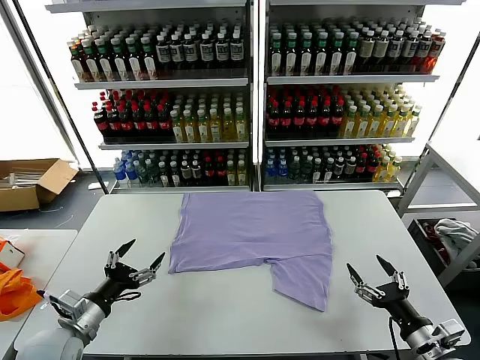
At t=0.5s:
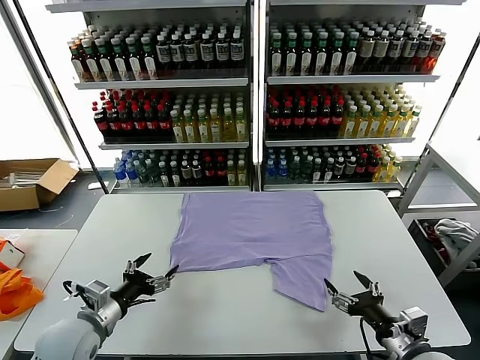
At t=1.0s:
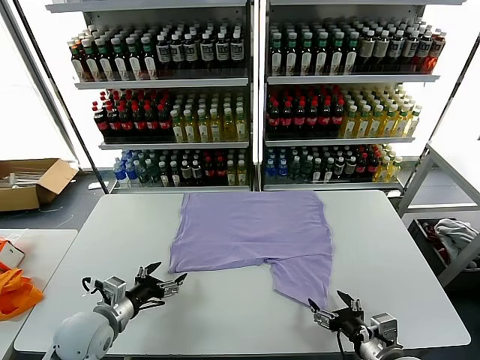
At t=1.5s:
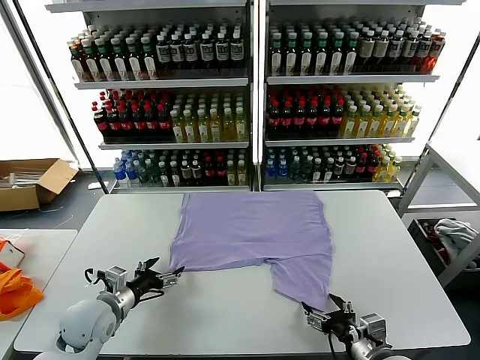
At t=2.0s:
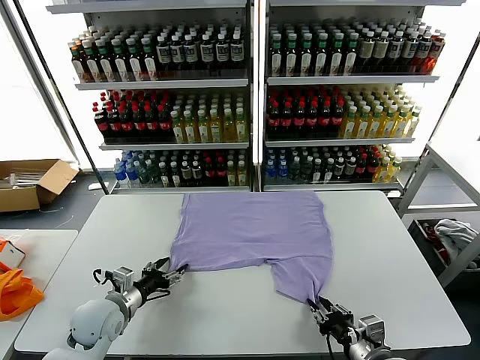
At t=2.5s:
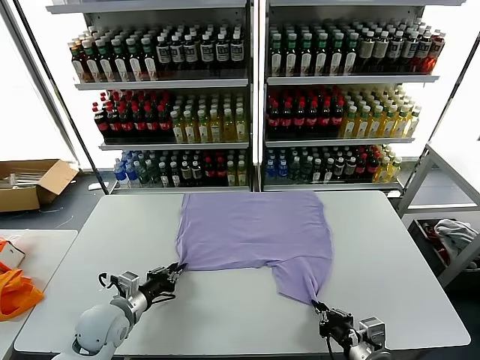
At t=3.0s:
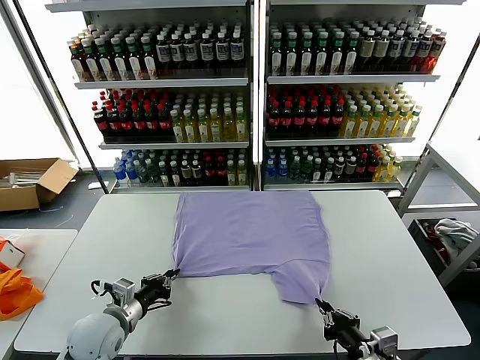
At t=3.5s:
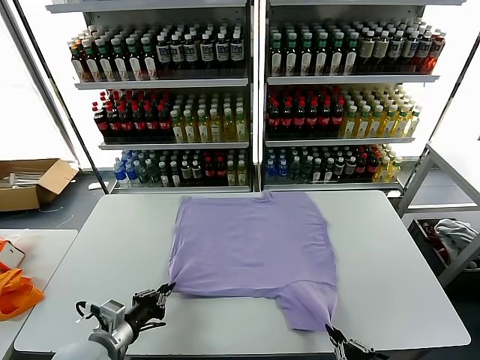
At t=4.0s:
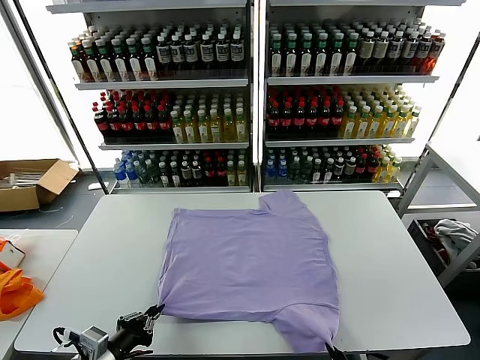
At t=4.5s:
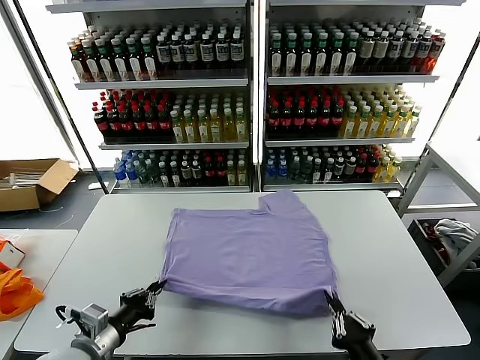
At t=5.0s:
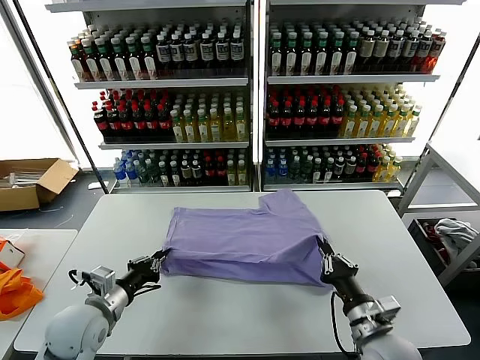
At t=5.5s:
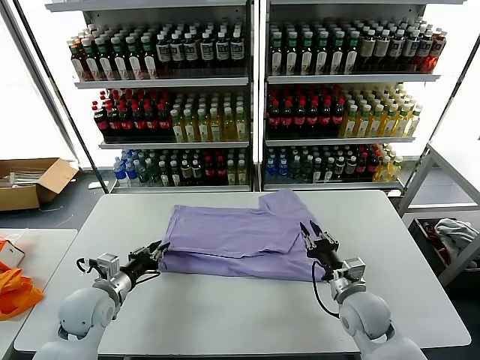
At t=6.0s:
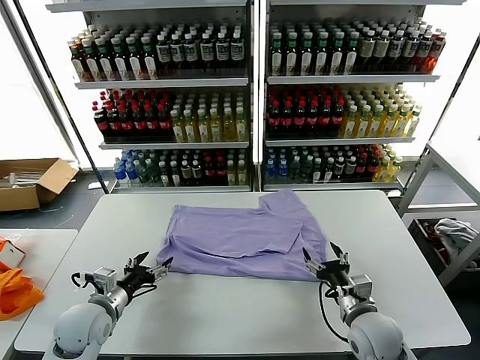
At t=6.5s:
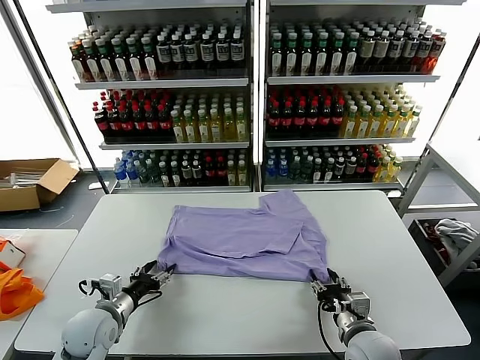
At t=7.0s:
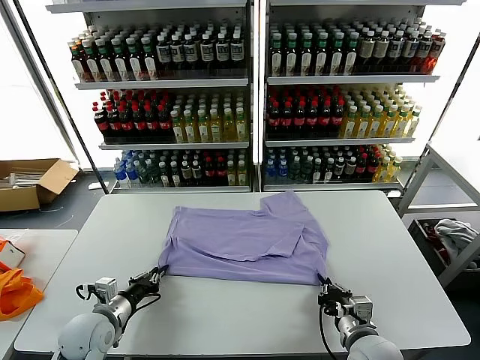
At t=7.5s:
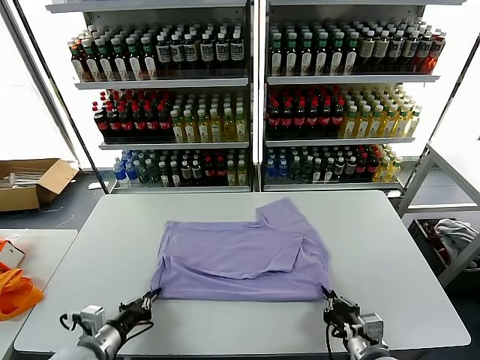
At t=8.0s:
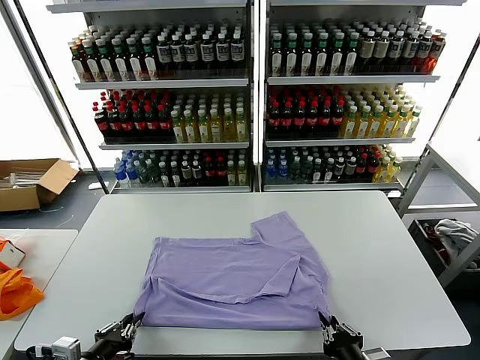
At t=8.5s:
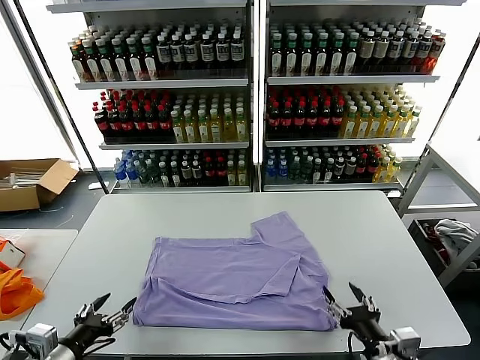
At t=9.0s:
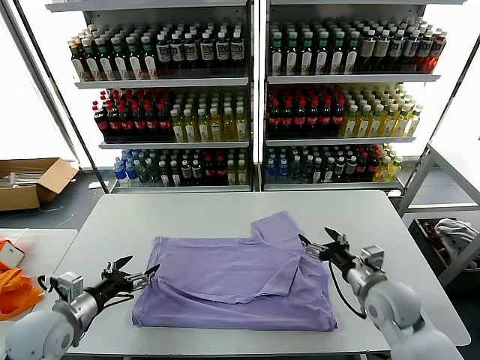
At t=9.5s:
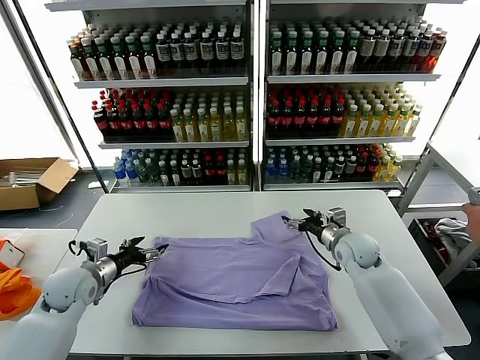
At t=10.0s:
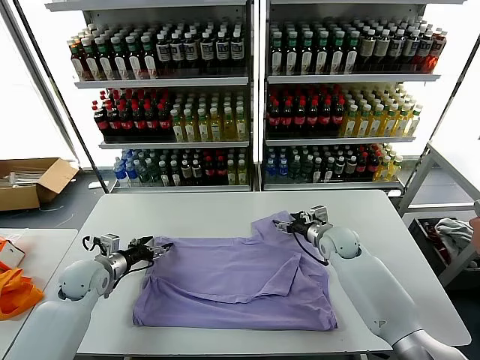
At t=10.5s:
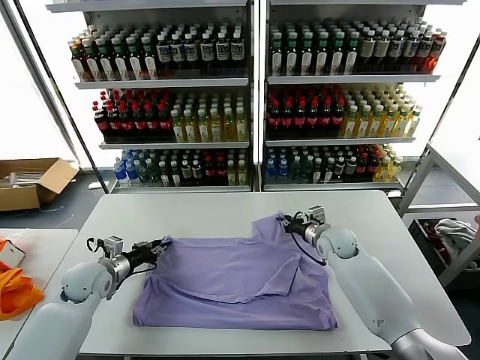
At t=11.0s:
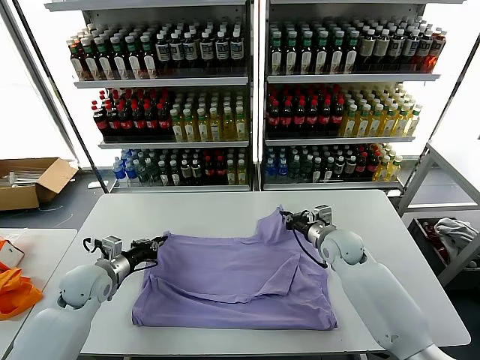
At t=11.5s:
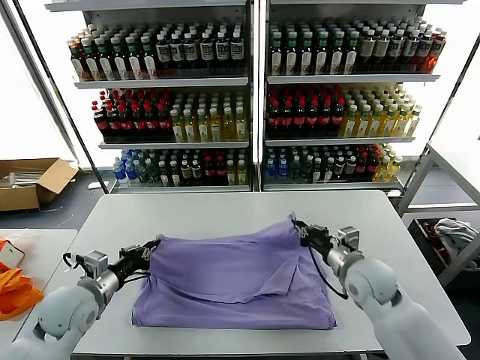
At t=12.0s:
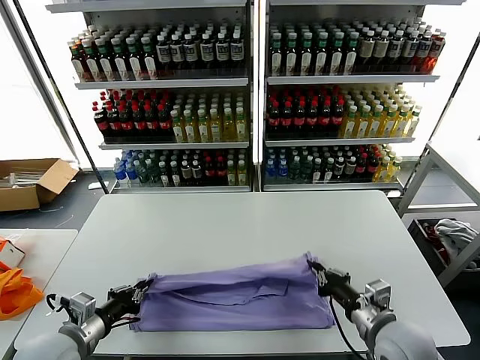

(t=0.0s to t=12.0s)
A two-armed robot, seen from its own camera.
Task of the whole recording: fold and organize the clothes.
Step, t=0.0s - t=2.5s: use both grippers simultaneously to clamp the lower edge of the clothing fabric.
Step, t=3.0s - t=5.5s: use both grippers to drag the lower edge of the fabric forward and fold it over the upper edge.
Step, t=6.0s - t=8.0s: Drag the clothes downward with both gripper.
Step, t=8.5s - t=10.5s: use both grippers simultaneously to clamp the upper edge of the clothing fabric.
t=2.0s - t=4.0s: The left gripper travels backward and upward by roughly 15 cm, and closes. Meanwhile the right gripper travels backward by about 15 cm.
t=4.0s - t=6.0s: The right gripper goes roughly 20 cm forward, and opens up; the left gripper goes roughly 15 cm forward, and opens its fingers.
t=6.0s - t=8.0s: The grippers both shift backward by about 15 cm. The left gripper closes its fingers. The right gripper closes.
t=8.0s - t=10.0s: Both grippers move forward, about 30 cm. The left gripper opens. The right gripper opens its fingers.
t=10.0s - t=12.0s: The right gripper is displaced backward by approximately 30 cm, and closes, while the left gripper moves backward, approximately 20 cm, and closes up.

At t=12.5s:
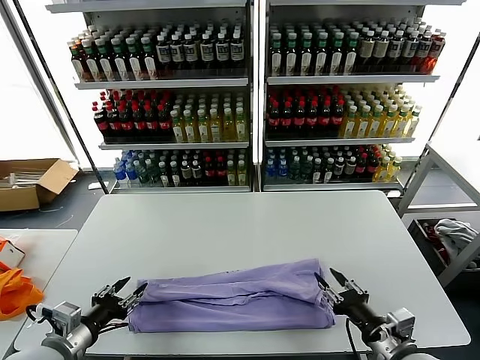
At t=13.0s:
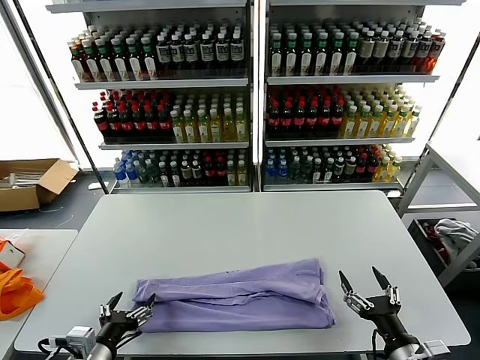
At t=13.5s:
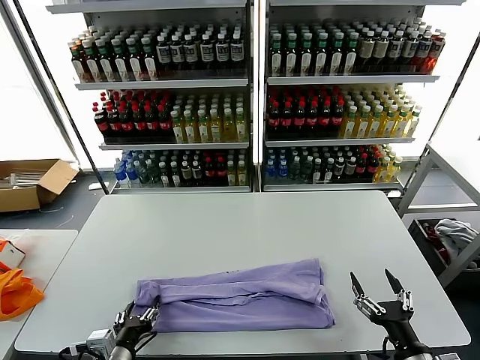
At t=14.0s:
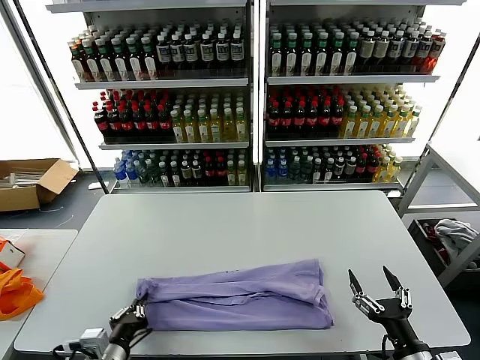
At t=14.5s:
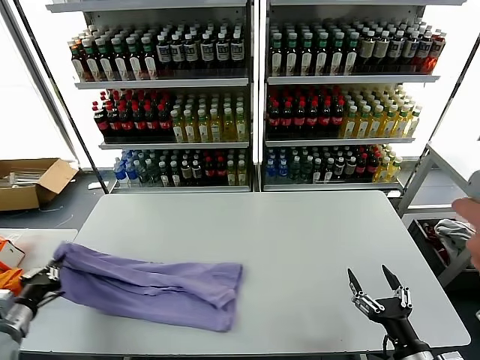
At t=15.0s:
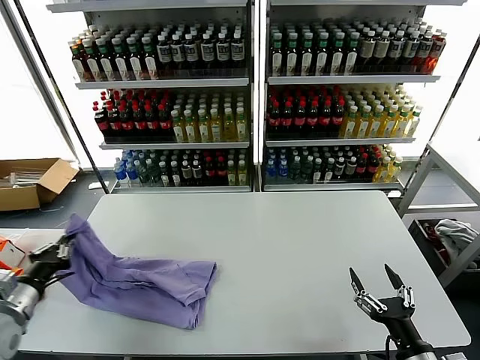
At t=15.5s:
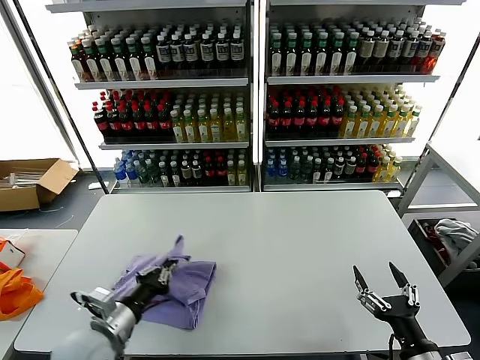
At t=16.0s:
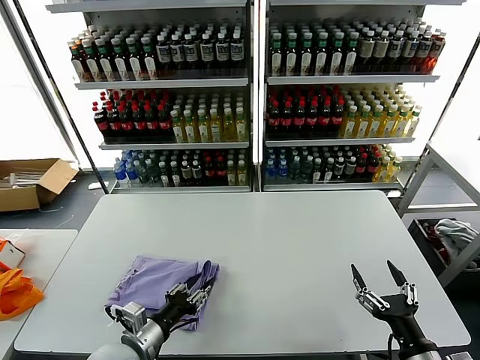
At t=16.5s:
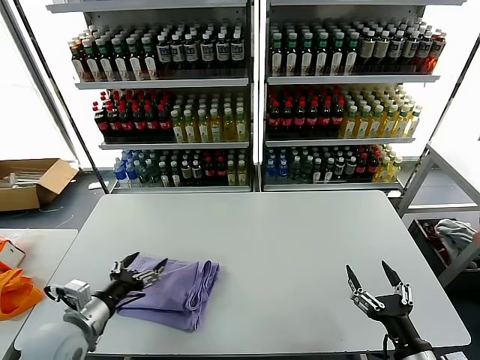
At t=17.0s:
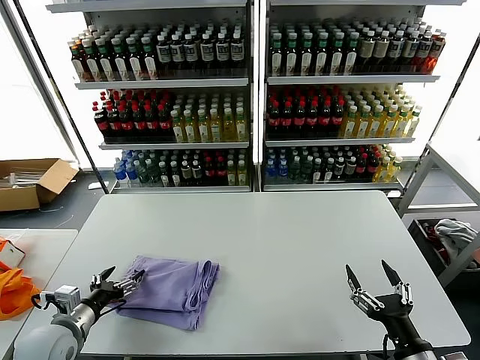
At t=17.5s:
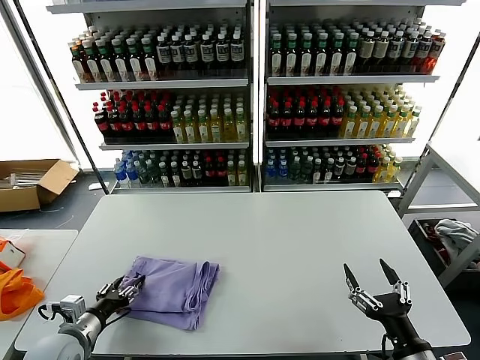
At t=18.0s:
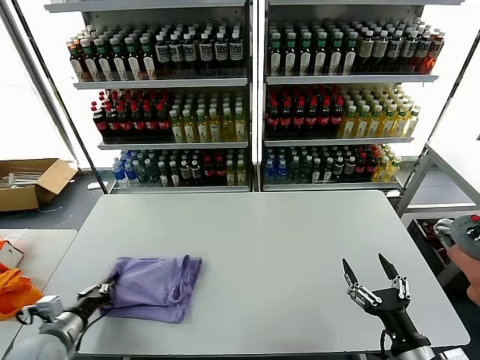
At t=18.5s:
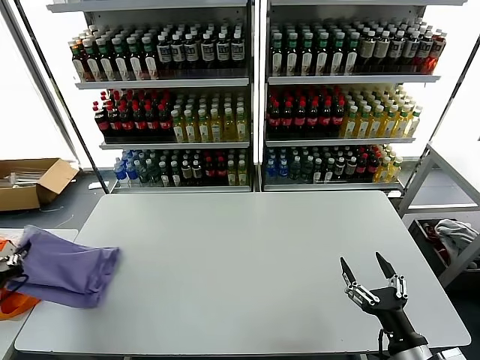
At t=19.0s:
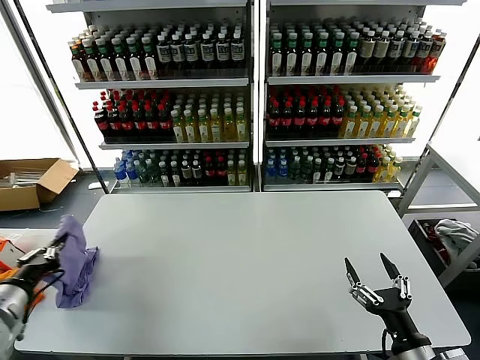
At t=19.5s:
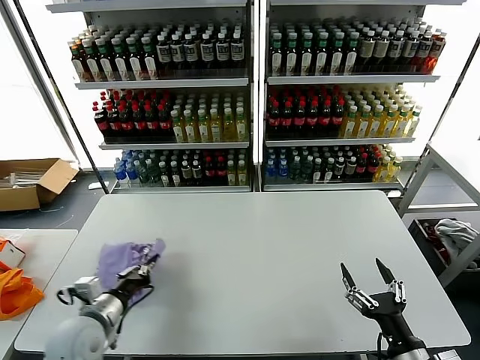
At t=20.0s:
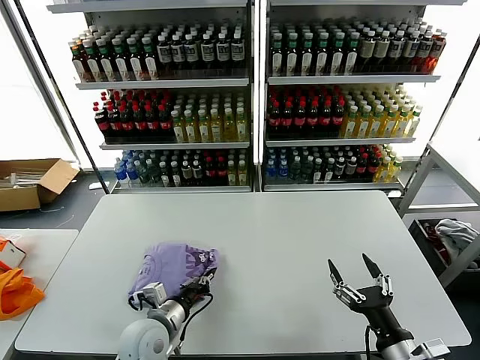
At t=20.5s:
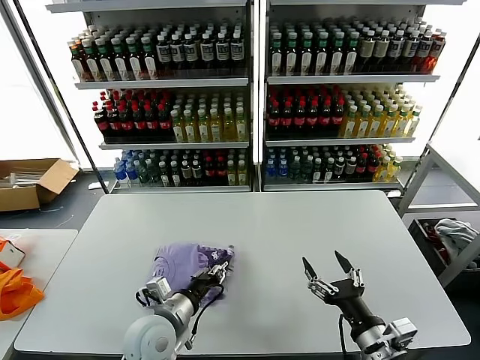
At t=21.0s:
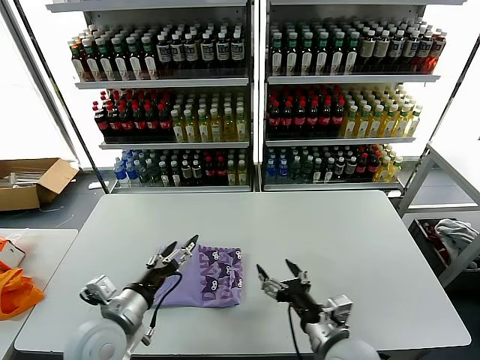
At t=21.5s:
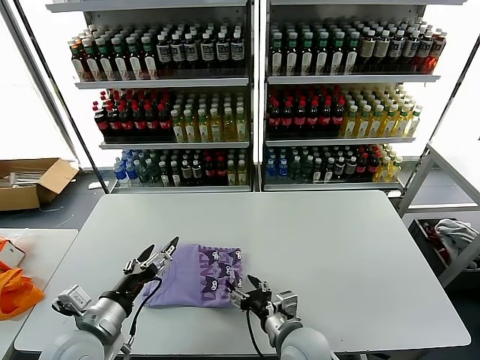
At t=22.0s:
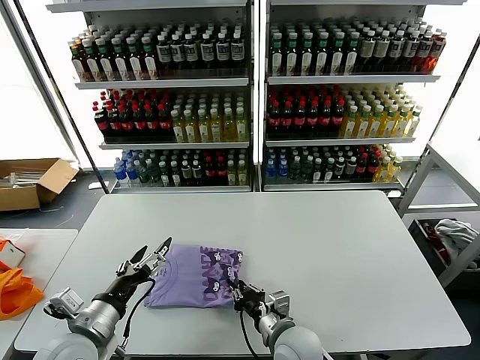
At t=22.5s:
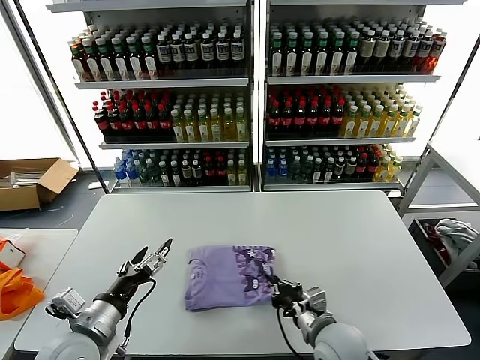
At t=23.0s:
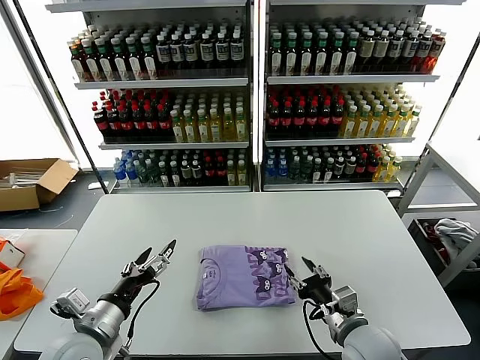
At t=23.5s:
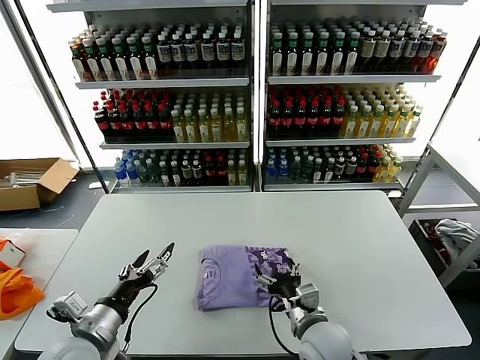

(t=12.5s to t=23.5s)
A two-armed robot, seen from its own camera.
Task of the whole recording: fold and organize the clothes.
Step, t=13.0s - t=13.5s: use the left gripper to clamp the left edge of the fabric.
Step, t=14.5s - t=16.0s: use the left gripper to drag the left edge of the fabric to the left and folds it over the right edge.
Step, t=16.5s - t=20.5s: Flip the folded clothes over with left gripper.
t=12.5s - t=14.5s: The right gripper moves roughly 5 cm, and opens. Meanwhile the left gripper shifts roughly 10 cm to the left, and closes up.
t=14.5s - t=16.0s: The left gripper heads to the right, covering about 20 cm, and opens its fingers.
t=16.0s - t=18.0s: The left gripper heads to the left, covering some 15 cm, and opens, then closes once more.
t=18.0s - t=20.0s: The left gripper is displaced to the right by about 20 cm.
t=20.0s - t=21.5s: The left gripper travels upward, to the left and backward by approximately 15 cm, and opens its fingers. Meanwhile the right gripper travels to the left and forward by approximately 20 cm.
t=21.5s - t=23.5s: The right gripper goes to the right and returns, approximately 10 cm each way, and closes and opens again.

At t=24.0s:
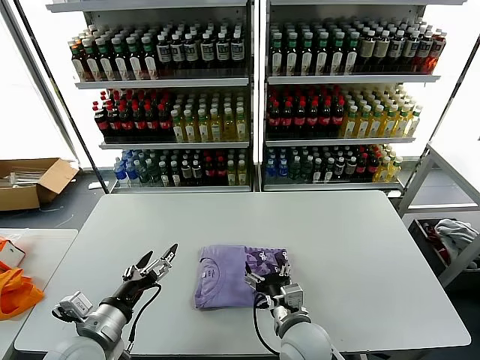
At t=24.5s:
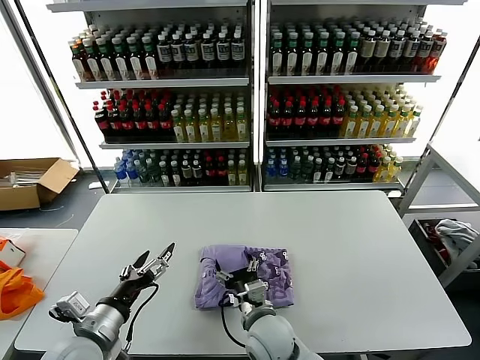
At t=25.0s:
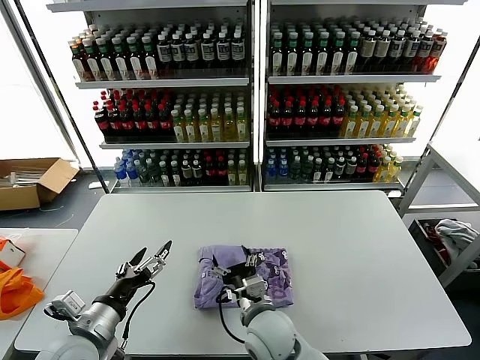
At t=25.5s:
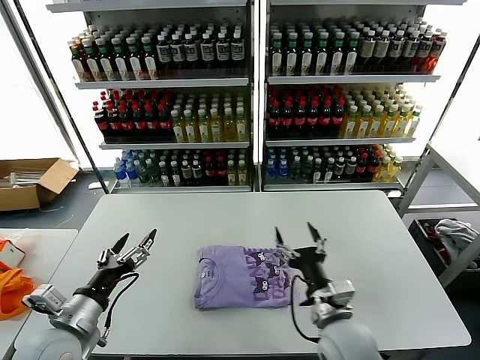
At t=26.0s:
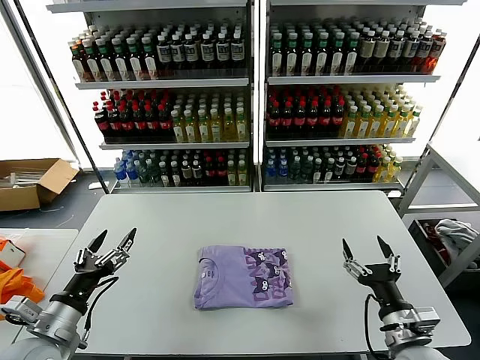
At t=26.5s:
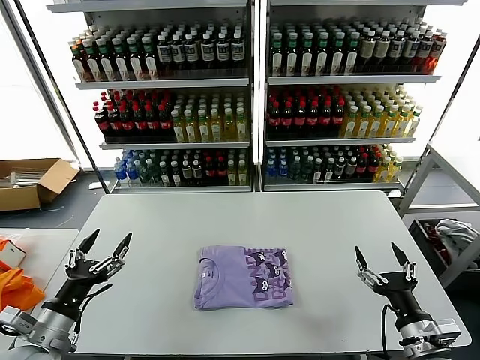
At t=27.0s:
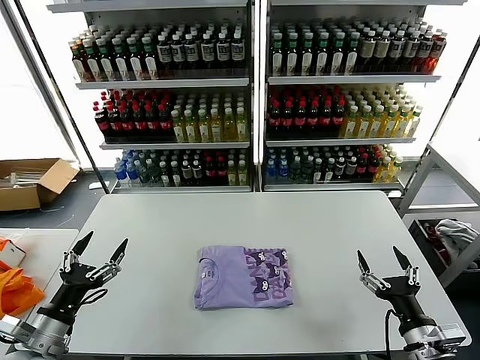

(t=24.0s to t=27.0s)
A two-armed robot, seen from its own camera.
Task of the whole recording: fold and organize the clothes.
t=24.0s - t=25.5s: The right gripper ends up approximately 5 cm from where it was.
t=25.5s - t=27.0s: The right gripper travels to the right and backward by some 20 cm. Meanwhile the left gripper is displaced to the left by roughly 5 cm.
